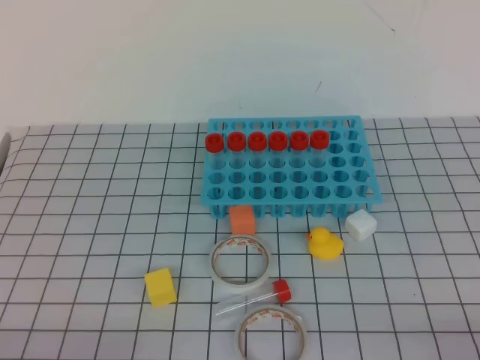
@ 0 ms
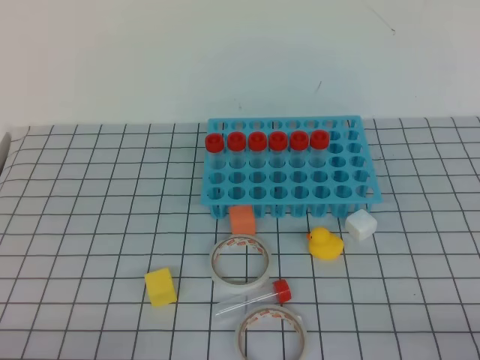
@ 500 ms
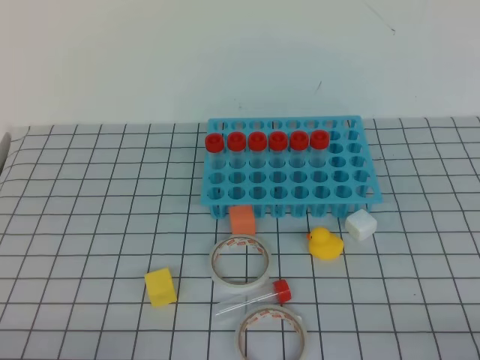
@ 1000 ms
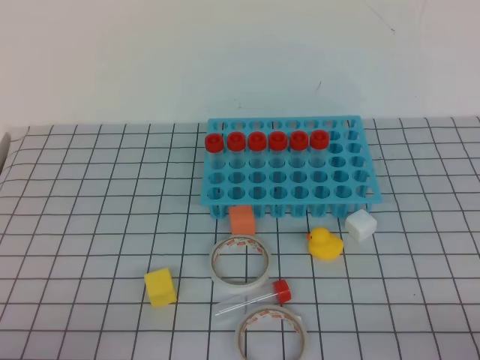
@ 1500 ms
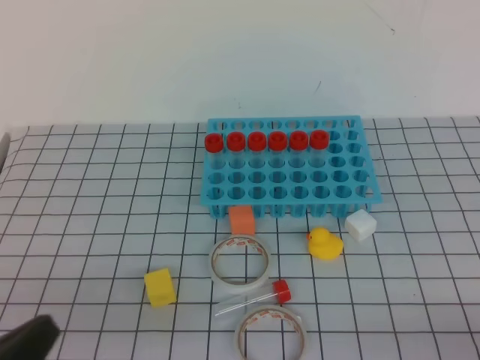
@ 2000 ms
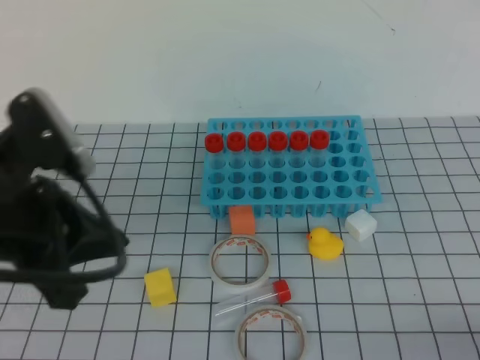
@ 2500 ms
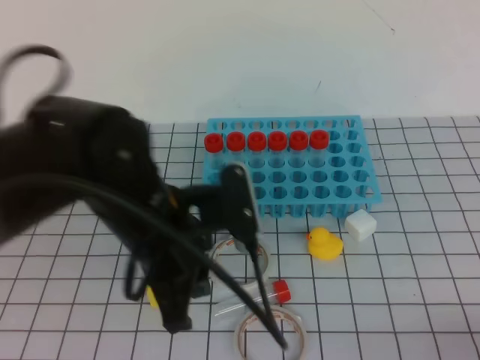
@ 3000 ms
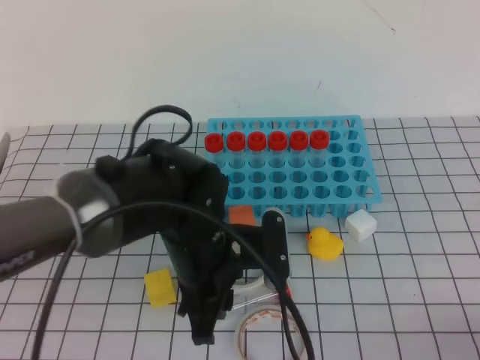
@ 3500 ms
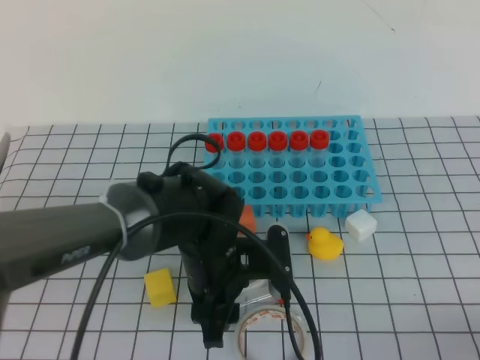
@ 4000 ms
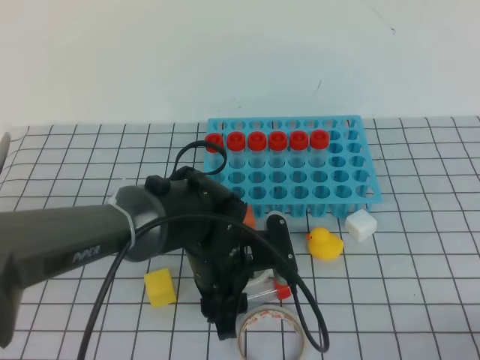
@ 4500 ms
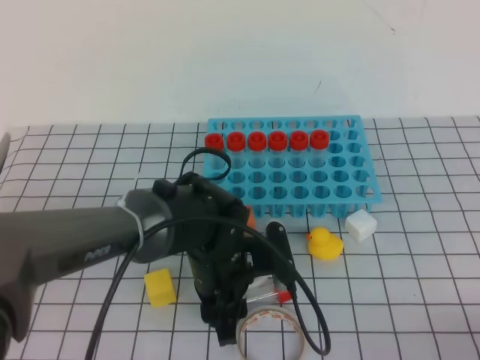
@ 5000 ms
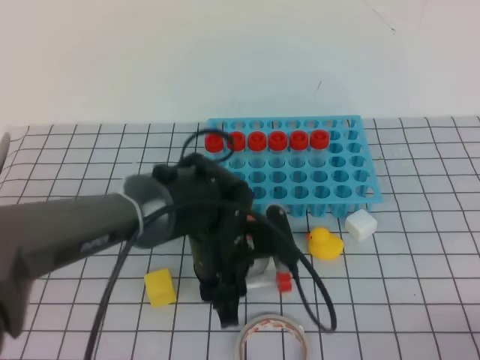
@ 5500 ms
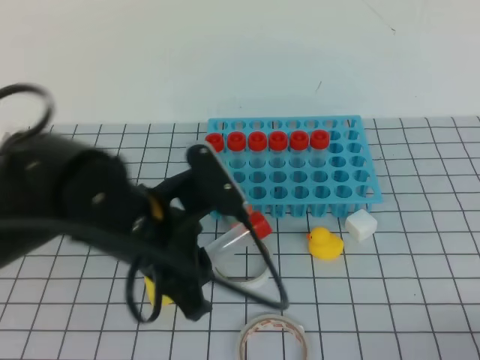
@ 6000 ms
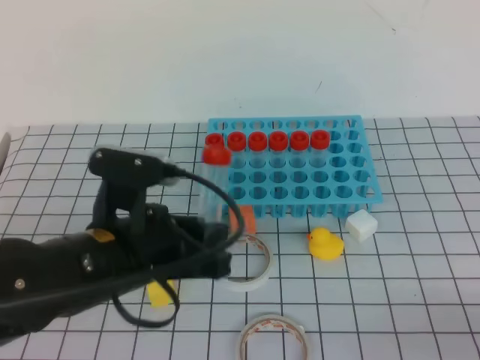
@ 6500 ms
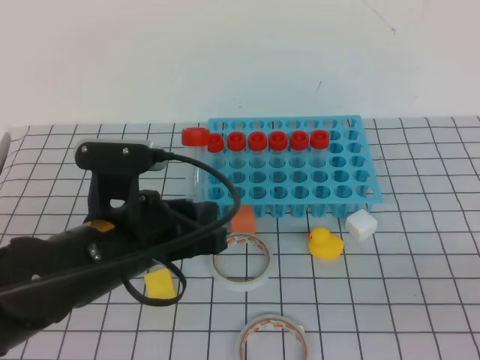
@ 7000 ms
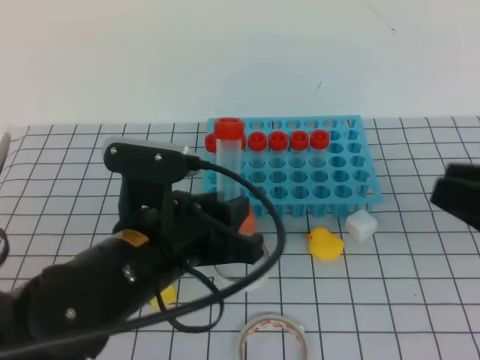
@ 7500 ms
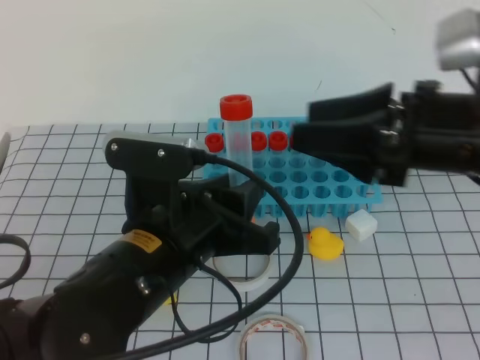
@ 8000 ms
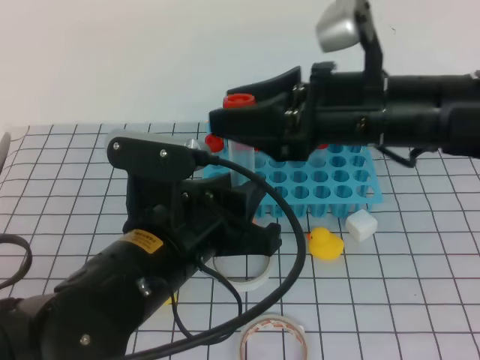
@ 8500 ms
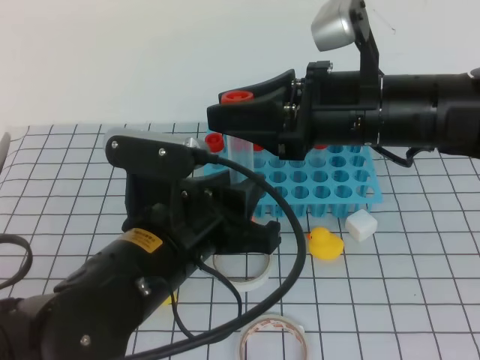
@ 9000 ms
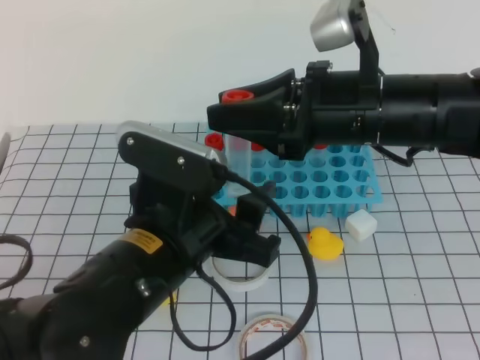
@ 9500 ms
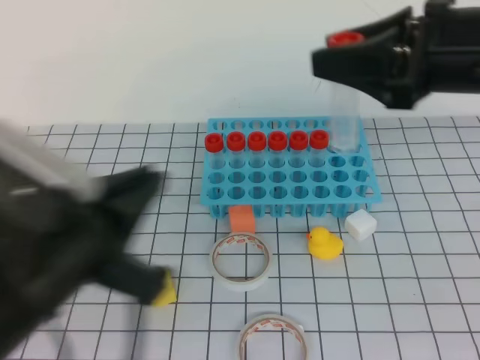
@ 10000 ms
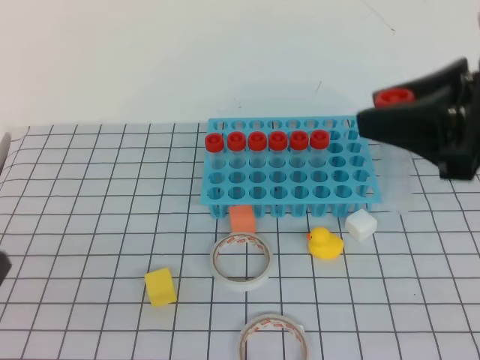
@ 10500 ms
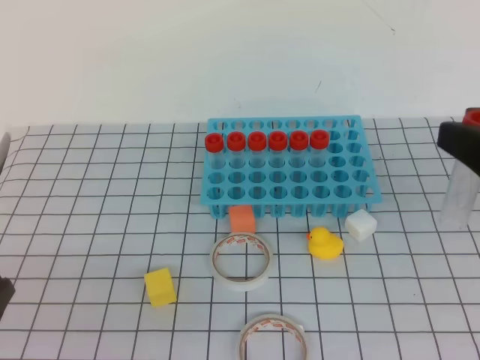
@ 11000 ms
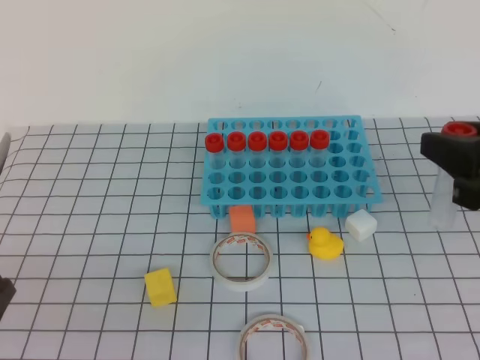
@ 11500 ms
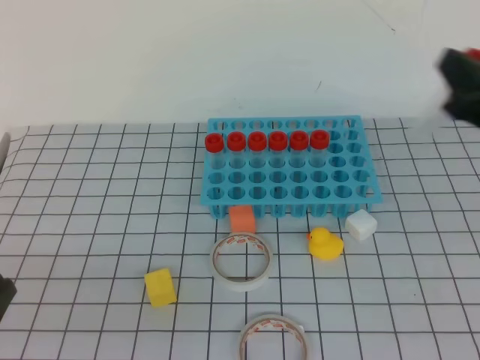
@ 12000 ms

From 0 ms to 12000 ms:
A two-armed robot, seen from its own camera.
From 0 ms to 2000 ms: The left gripper moves upward, roughly 10 cm.
From 2000 ms to 4000 ms: The left gripper shifts about 30 cm forward and to the right, and opens up.
From 4000 ms to 6000 ms: The left gripper heads upward, covering approximately 10 cm, and closes.
From 6000 ms to 8000 ms: The right gripper is displaced forward, upward and to the left by approximately 30 cm, and opens up.
From 8000 ms to 10000 ms: The left gripper goes about 10 cm to the left and backward, and opens and closes again, while the right gripper travels to the left and back again, roughly 10 cm each way, and closes up.
From 10000 ms to 12000 ms: The right gripper travels to the right and downward by some 10 cm, and goes backward and returns, some 10 cm each way. Meanwhile the left gripper heads to the left, backward and downward, covering about 15 cm, and closes its fingers.

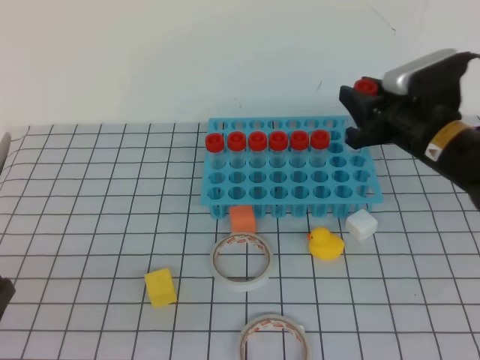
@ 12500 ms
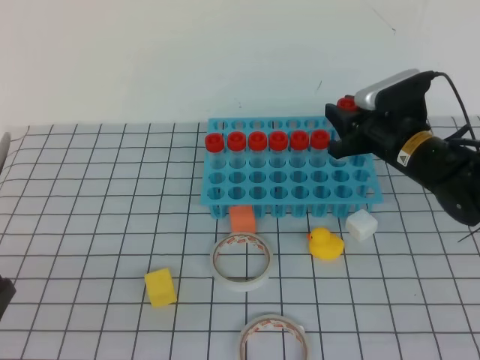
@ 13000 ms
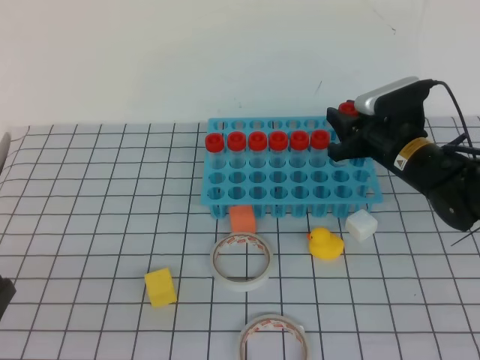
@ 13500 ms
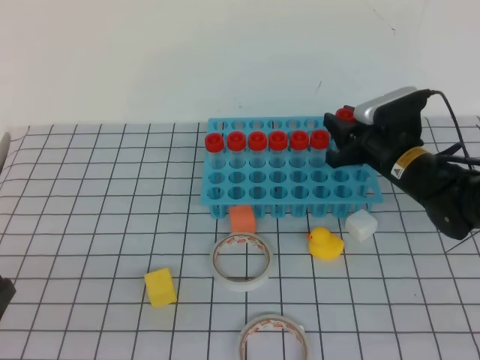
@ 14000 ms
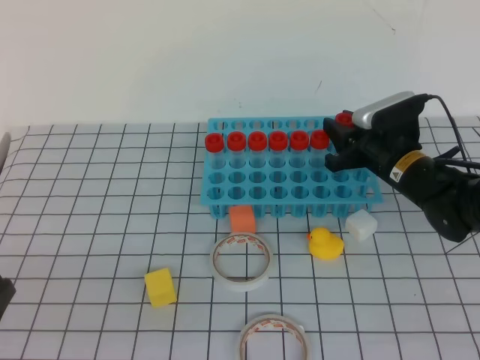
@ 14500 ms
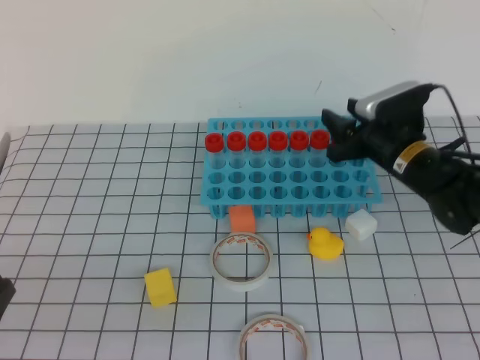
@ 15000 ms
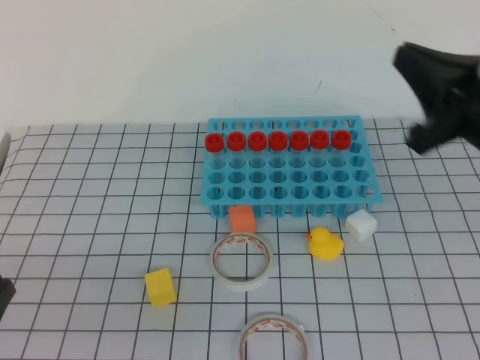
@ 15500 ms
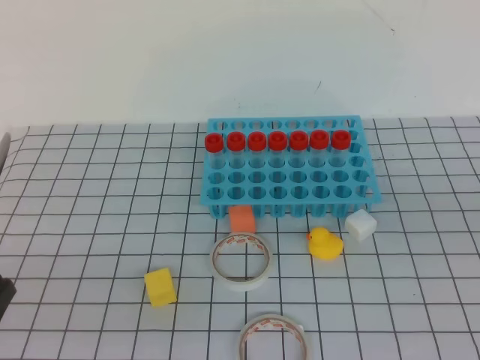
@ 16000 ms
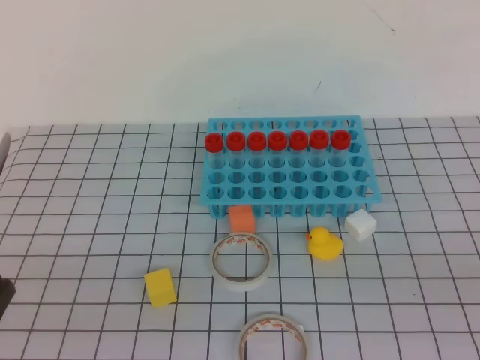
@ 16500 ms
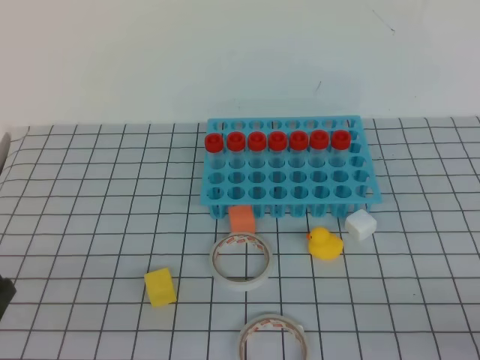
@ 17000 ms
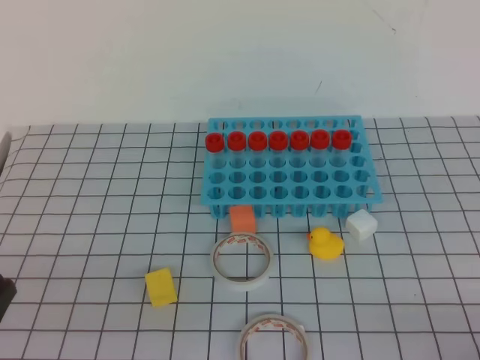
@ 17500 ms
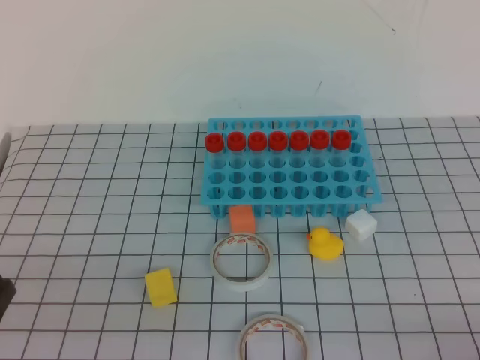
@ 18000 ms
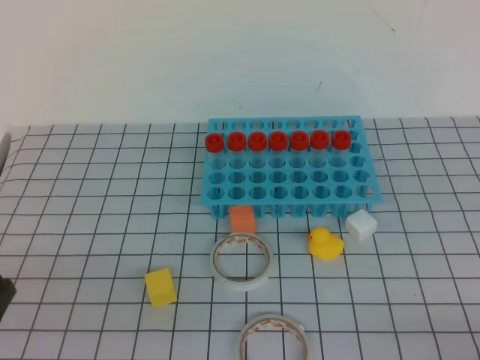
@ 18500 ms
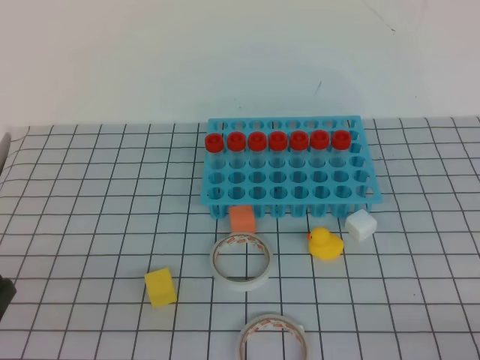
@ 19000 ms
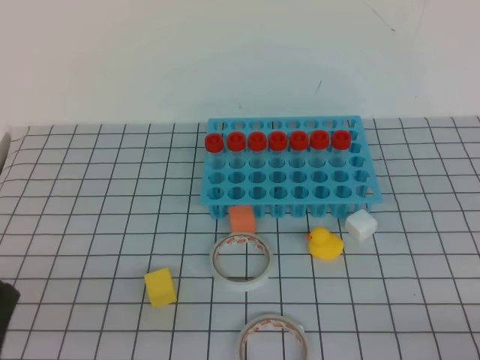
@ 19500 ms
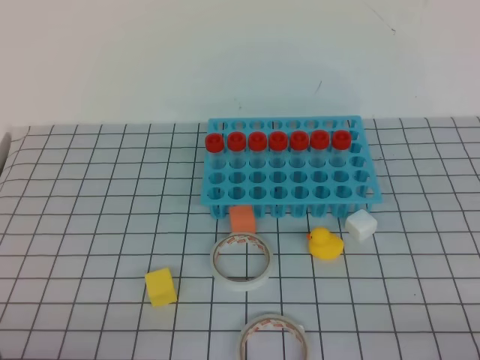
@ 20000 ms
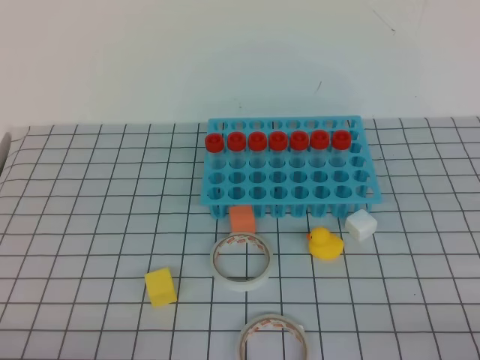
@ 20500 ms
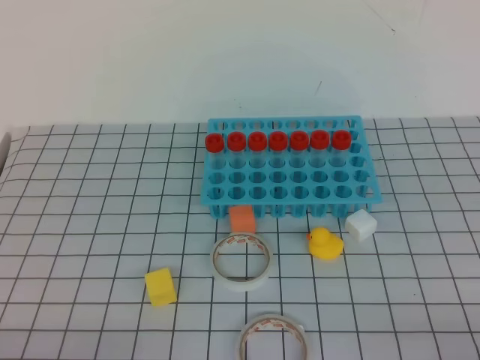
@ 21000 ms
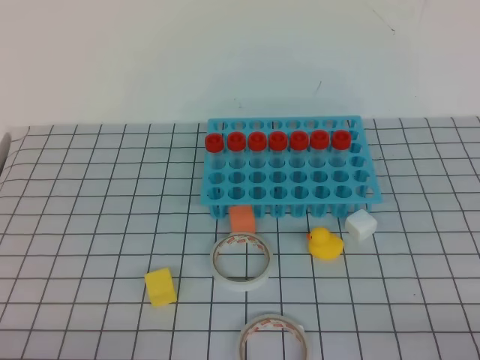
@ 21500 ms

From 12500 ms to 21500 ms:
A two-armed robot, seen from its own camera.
From 12500 ms to 14500 ms: The right gripper heads downward and forward, covering roughly 10 cm.
From 14500 ms to 17000 ms: The right gripper is displaced backward by roughly 35 cm, and closes.

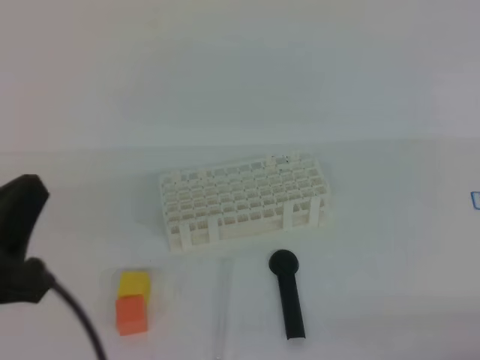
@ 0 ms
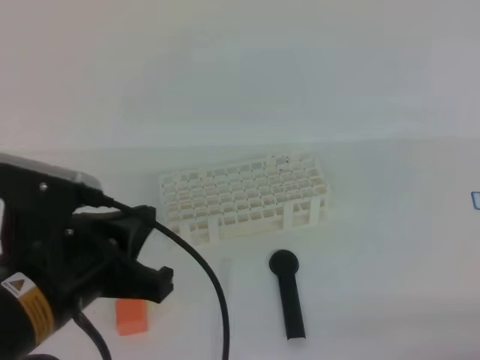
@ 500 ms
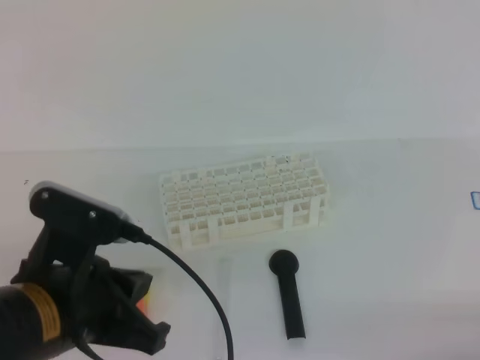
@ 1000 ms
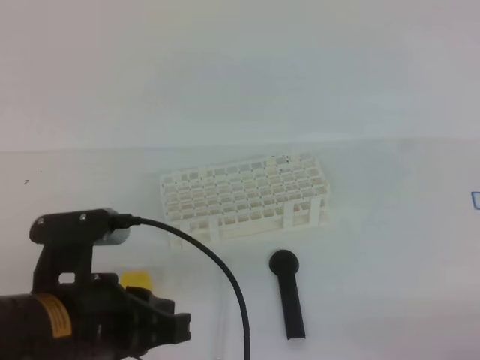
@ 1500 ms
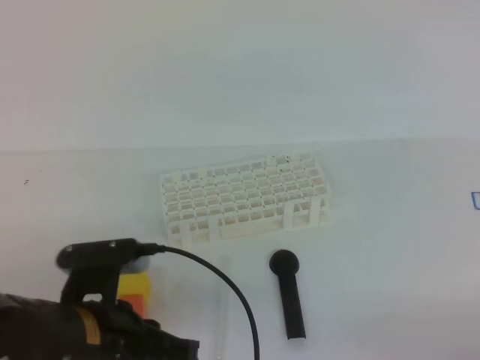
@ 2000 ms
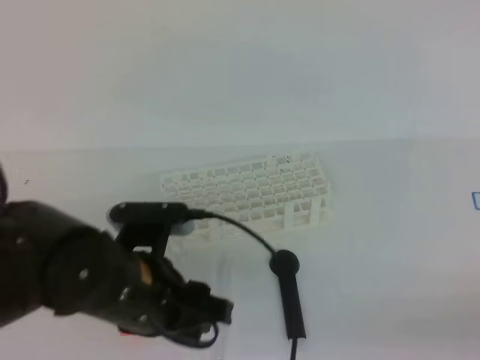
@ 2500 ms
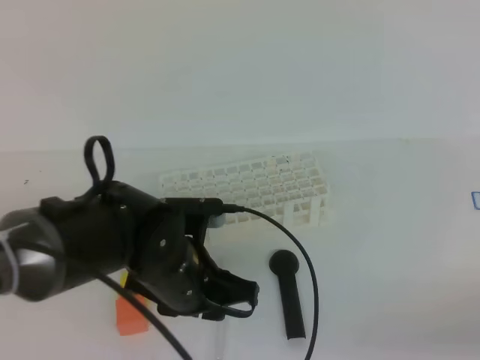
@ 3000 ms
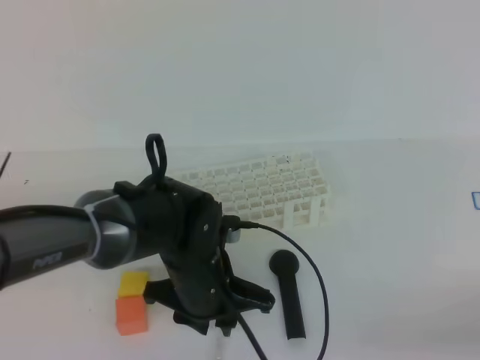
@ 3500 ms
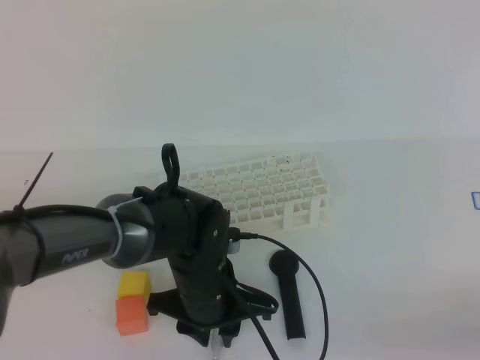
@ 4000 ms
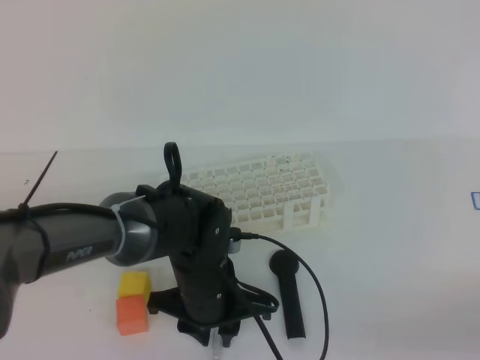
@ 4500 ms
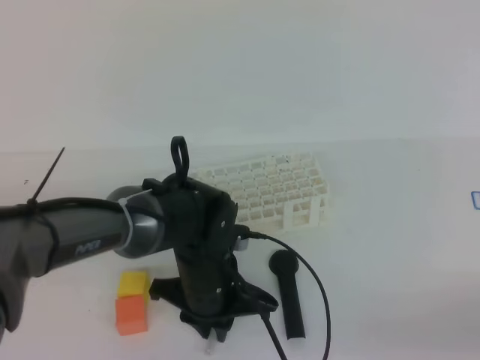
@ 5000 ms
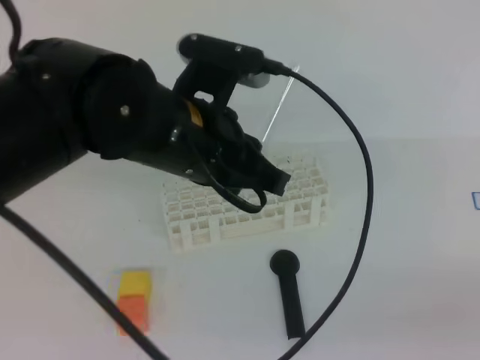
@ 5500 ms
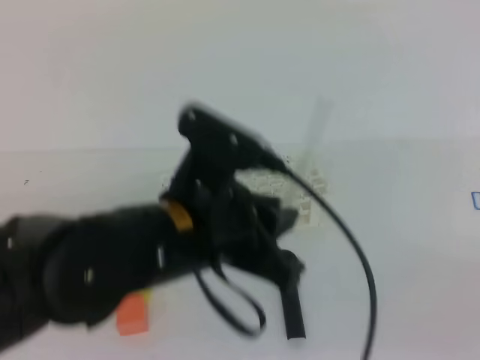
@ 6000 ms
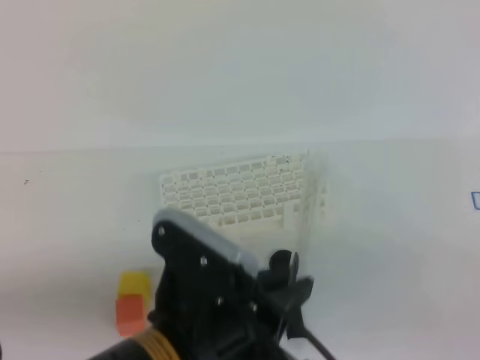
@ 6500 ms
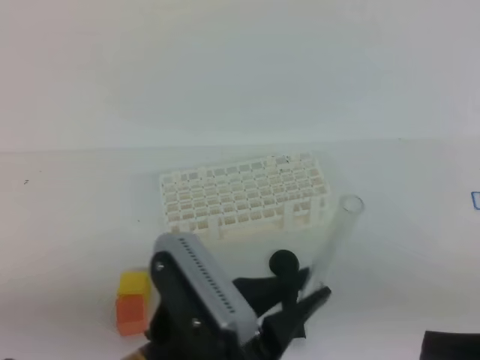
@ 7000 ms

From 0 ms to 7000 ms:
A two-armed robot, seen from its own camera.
From 0 ms to 2000 ms: The left gripper goes about 10 cm downward and to the right.
From 2000 ms to 3500 ms: The left gripper goes roughly 15 cm forward, to the right and downward, and opens its fingers.
From 3500 ms to 5000 ms: The left gripper closes up.
From 5000 ms to 7000 ms: The right gripper goes some 10 cm upward and to the left; the left gripper heads backward and upward, covering approximately 20 cm.
